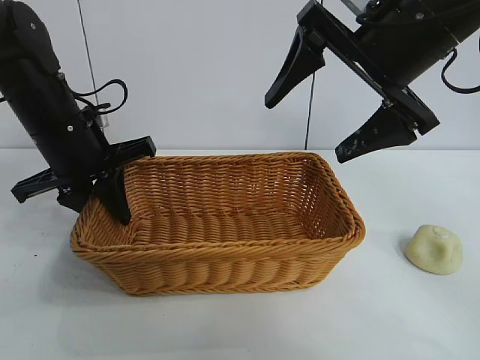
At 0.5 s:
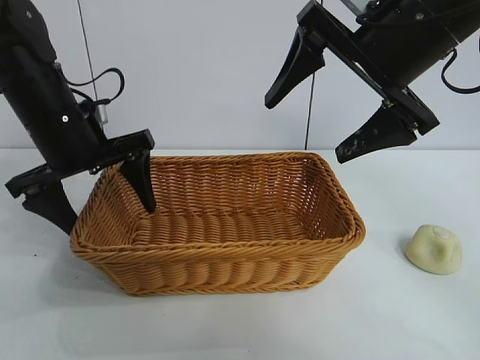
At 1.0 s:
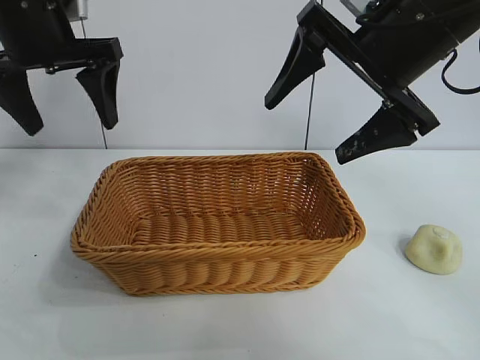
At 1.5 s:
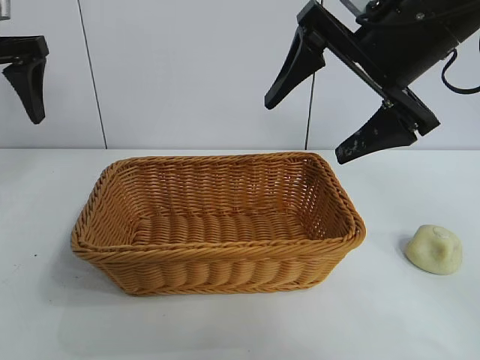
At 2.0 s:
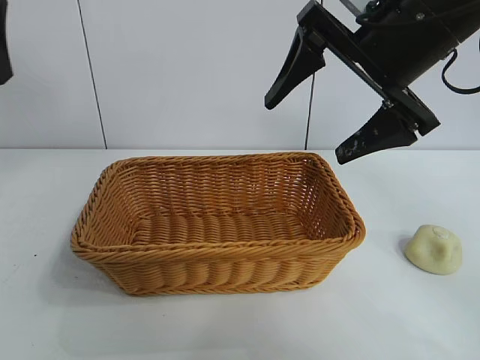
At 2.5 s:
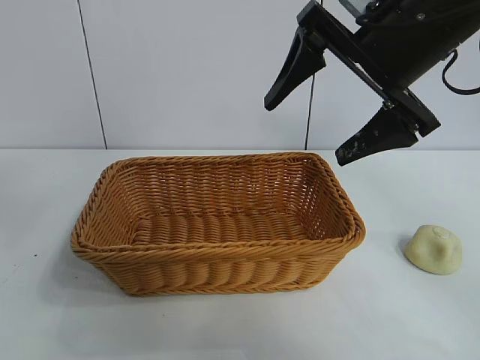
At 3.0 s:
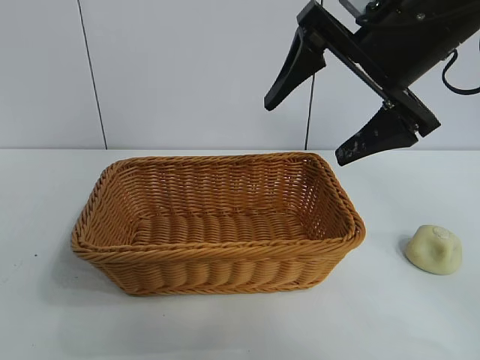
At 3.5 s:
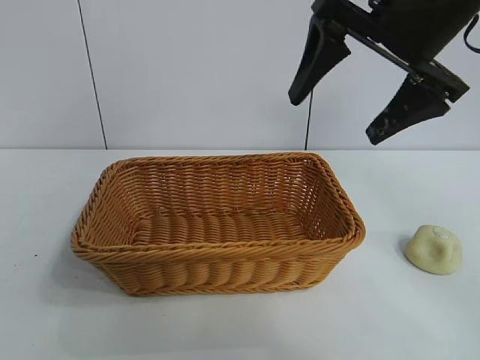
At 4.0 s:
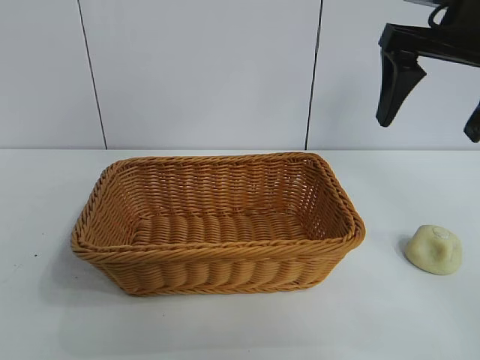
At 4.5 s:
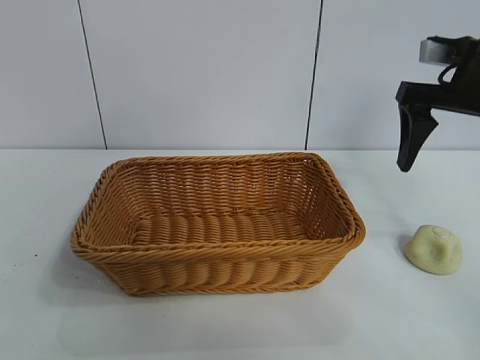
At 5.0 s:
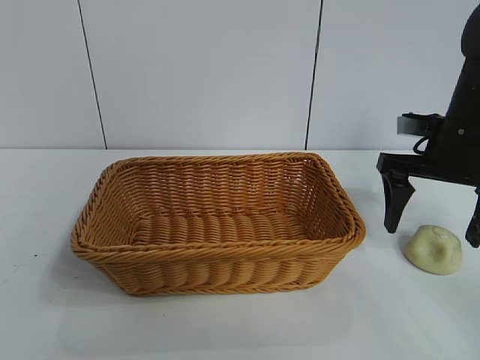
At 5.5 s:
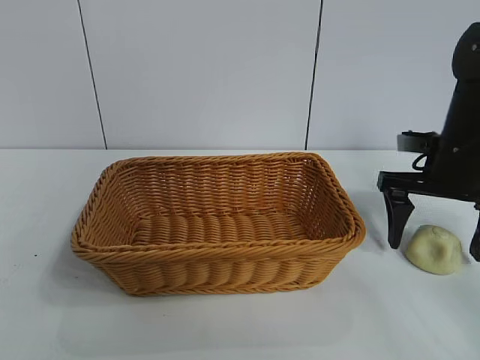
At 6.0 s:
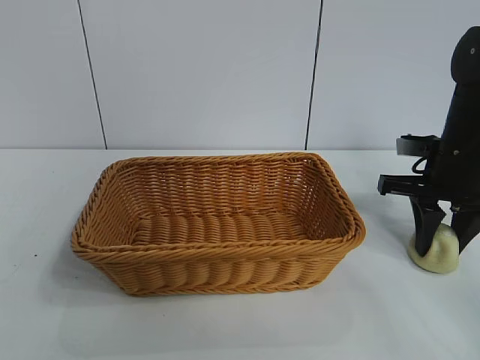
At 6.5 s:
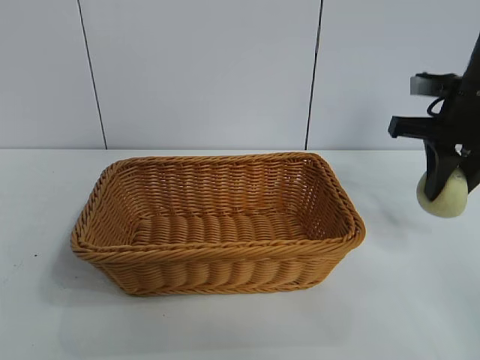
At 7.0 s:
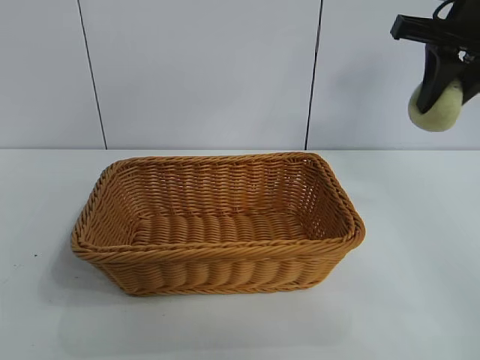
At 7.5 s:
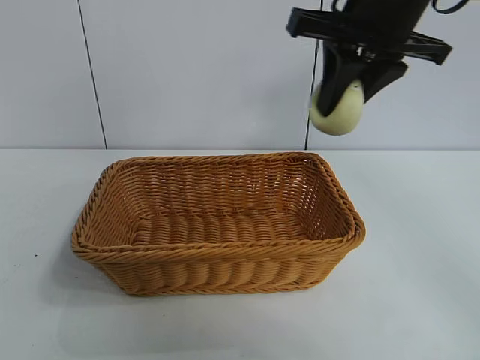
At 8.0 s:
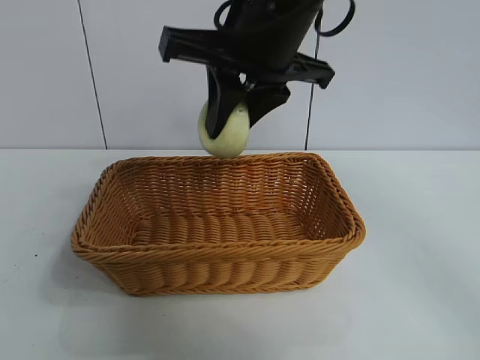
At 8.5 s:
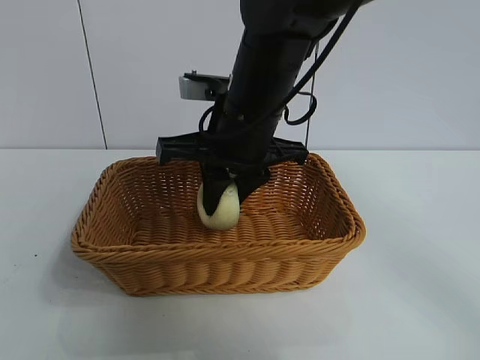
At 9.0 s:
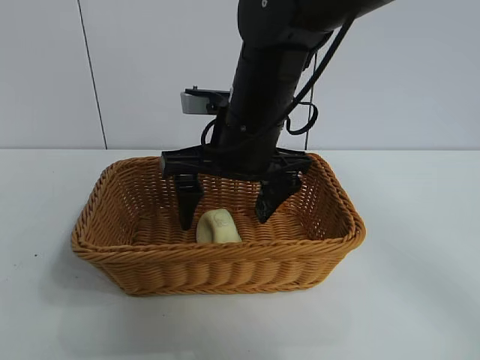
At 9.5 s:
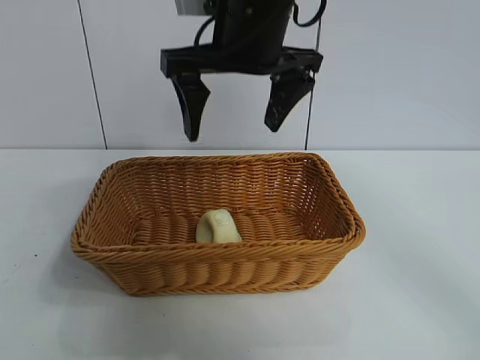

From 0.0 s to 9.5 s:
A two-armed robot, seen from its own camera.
Task of the whole recording: pick up the egg yolk pastry and put it into the basket.
Step, from 0.5 s to 6.0 s: Grasp egg yolk pastry with right gripper.
Step, from 6.5 s to 8.5 s: Place the egg yolk pastry in the basket with right gripper.
